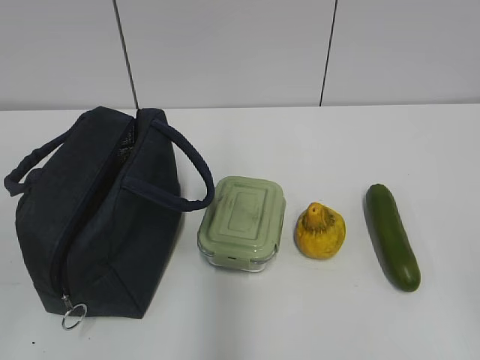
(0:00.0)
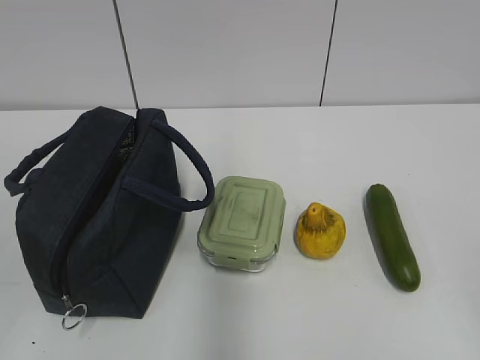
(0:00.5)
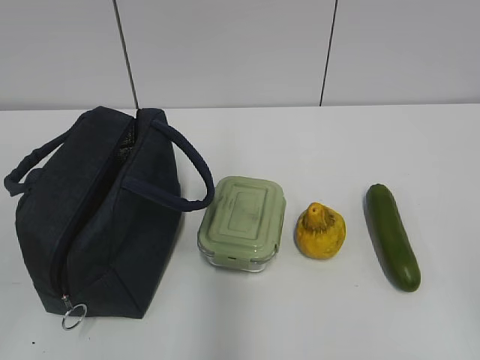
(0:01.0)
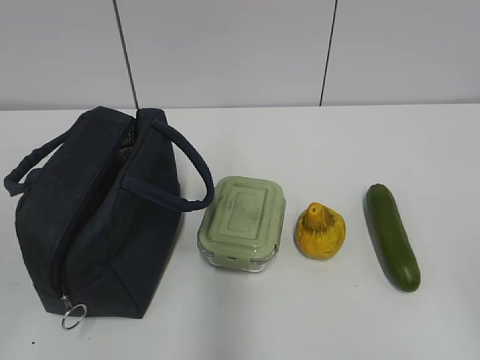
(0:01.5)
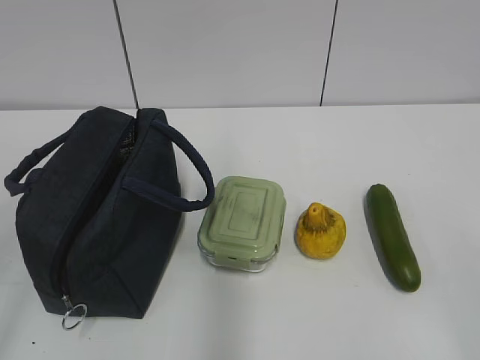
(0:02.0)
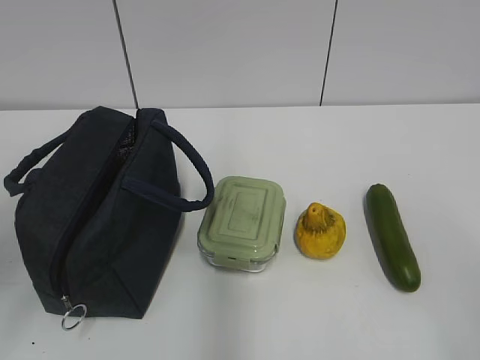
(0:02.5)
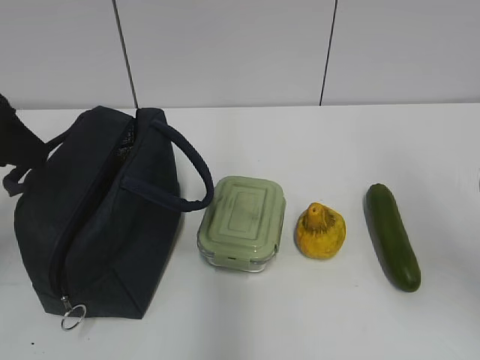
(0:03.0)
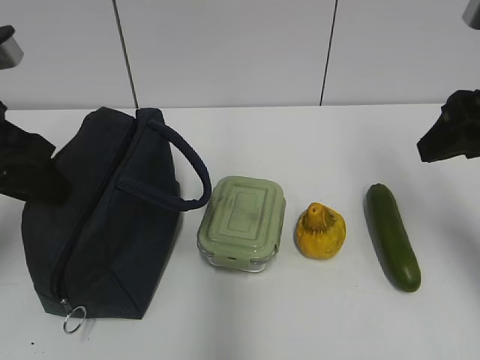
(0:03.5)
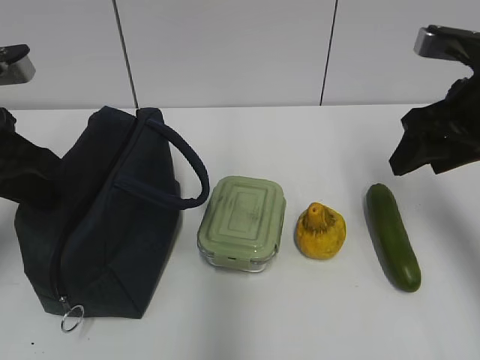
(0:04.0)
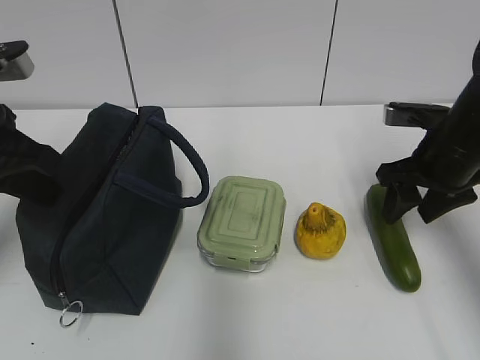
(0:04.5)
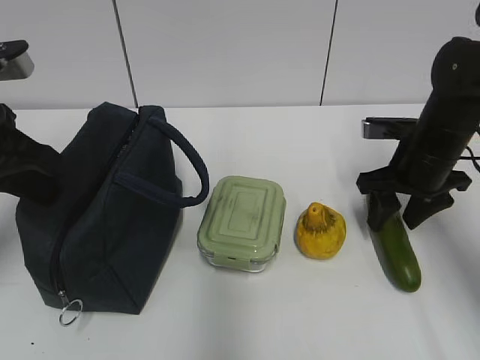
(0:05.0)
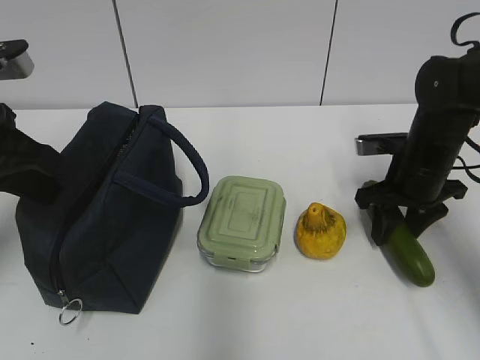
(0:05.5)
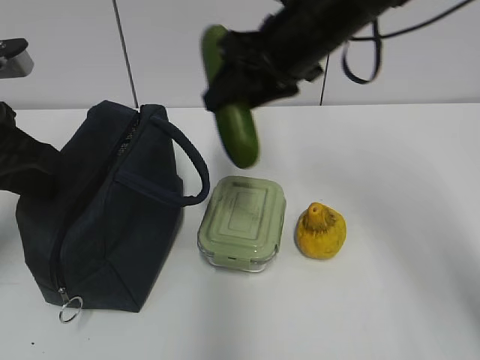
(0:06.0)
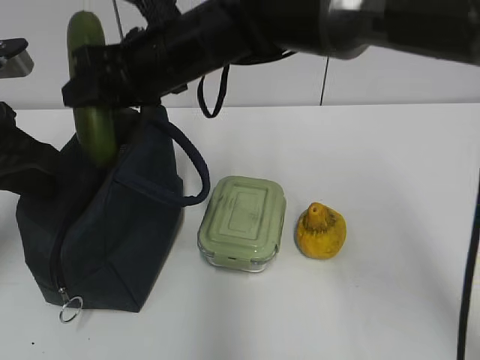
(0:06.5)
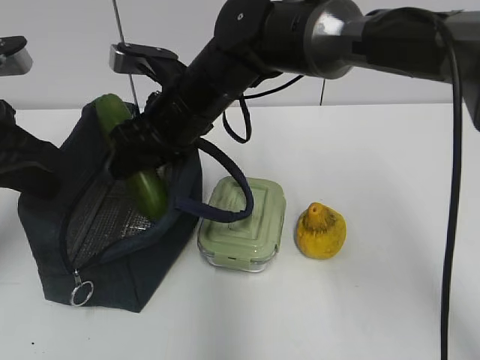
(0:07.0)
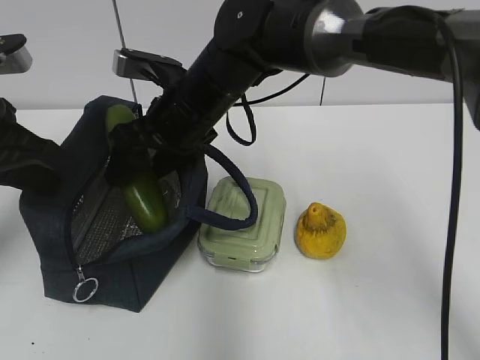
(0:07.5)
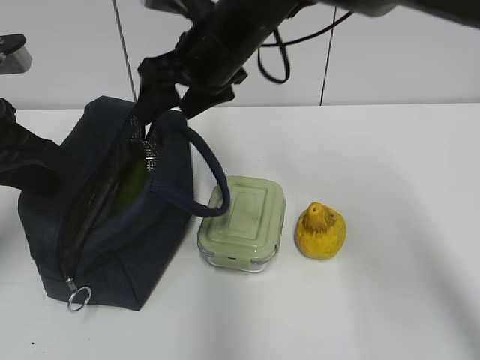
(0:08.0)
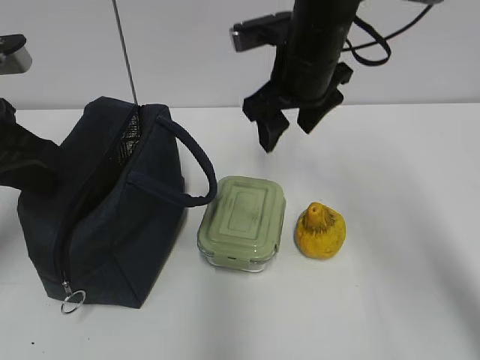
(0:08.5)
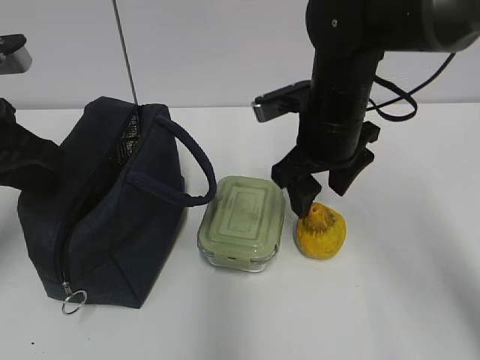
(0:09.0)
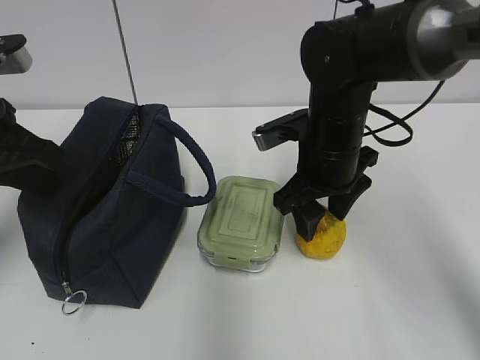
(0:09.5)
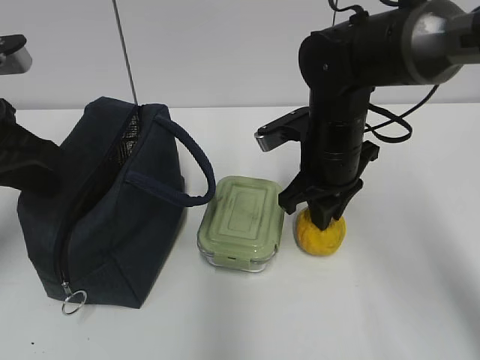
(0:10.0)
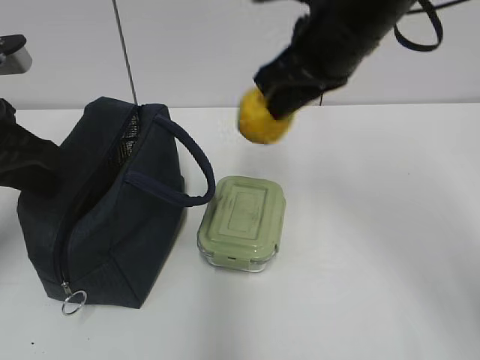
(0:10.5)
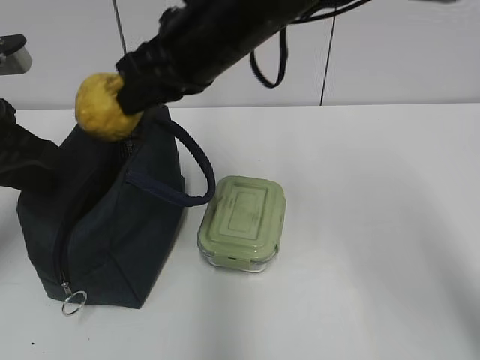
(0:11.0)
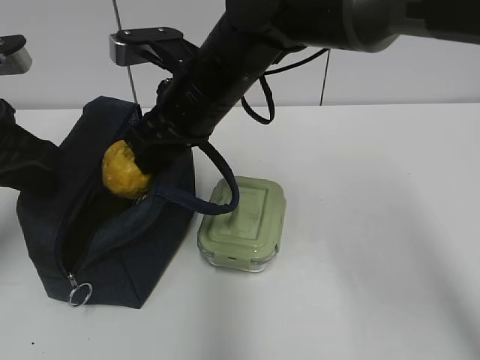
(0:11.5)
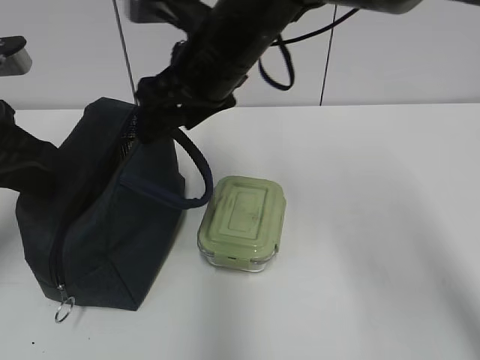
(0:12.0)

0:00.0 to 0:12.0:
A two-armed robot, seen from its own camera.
Step, 0:00.0 to 0:05.0: Grab the cucumber with your right hand.
Step, 0:07.0 to 0:07.5: Place it into the bag with your right hand.
Step, 0:08.0 to 0:09.5: Grab the pear with your right hand.
Step, 0:10.0 to 0:11.5: Place it into the bag with your right hand.
0:02.0 to 0:04.0: The grippers both shift forward by approximately 30 cm. The left gripper closes its fingers.
0:04.0 to 0:06.0: The right gripper moves to the left, approximately 15 cm.
0:06.0 to 0:08.0: The right gripper goes roughly 5 cm to the left, and opens its fingers.
0:08.0 to 0:10.0: The right gripper goes about 15 cm downward and to the right, and closes up.
0:10.0 to 0:12.0: The right gripper shifts roughly 15 cm upward and to the left, and opens up.

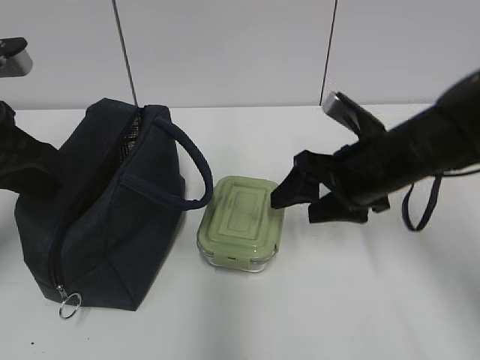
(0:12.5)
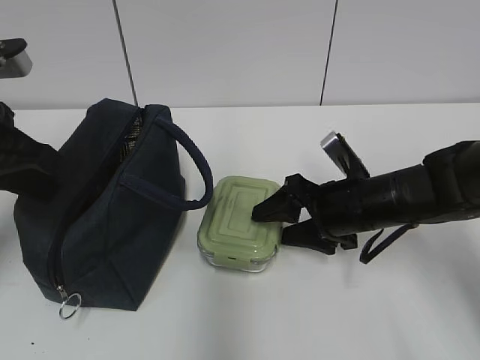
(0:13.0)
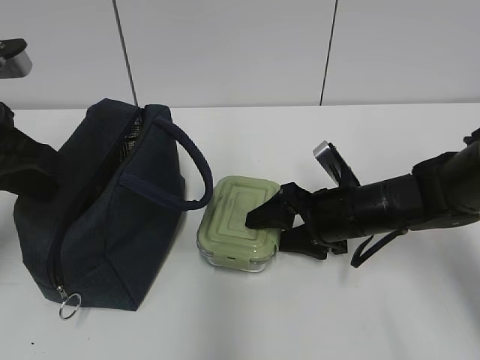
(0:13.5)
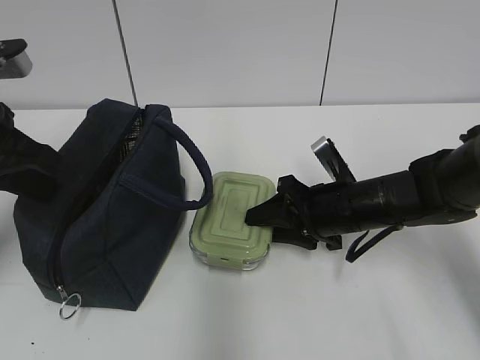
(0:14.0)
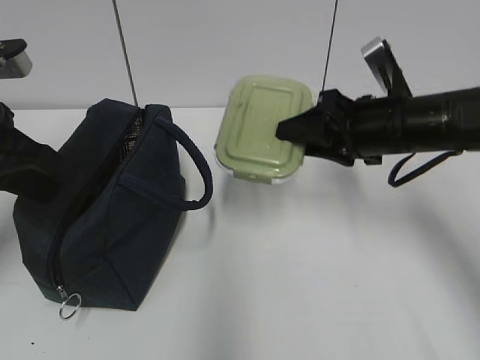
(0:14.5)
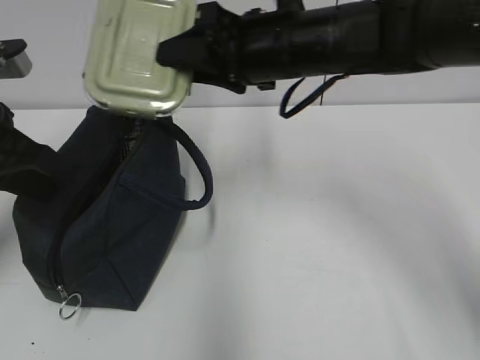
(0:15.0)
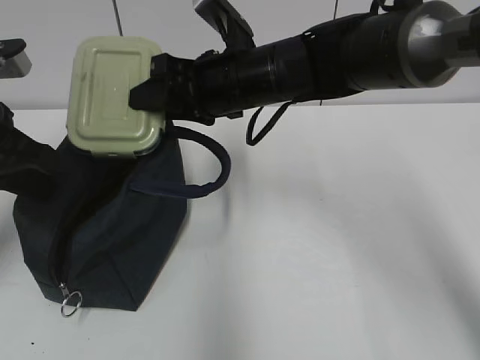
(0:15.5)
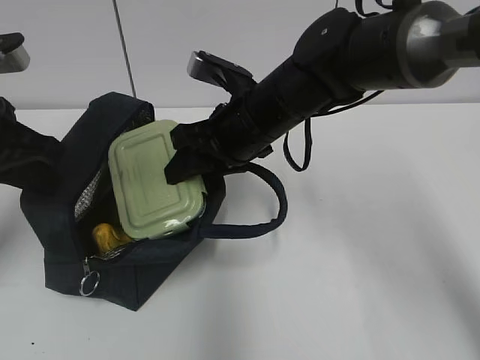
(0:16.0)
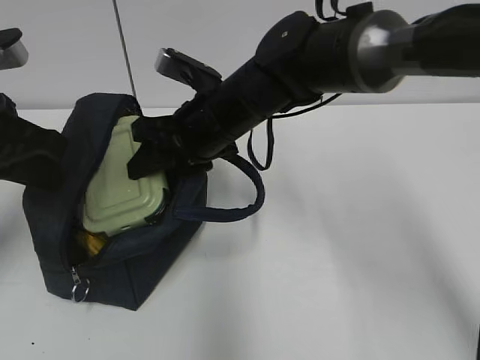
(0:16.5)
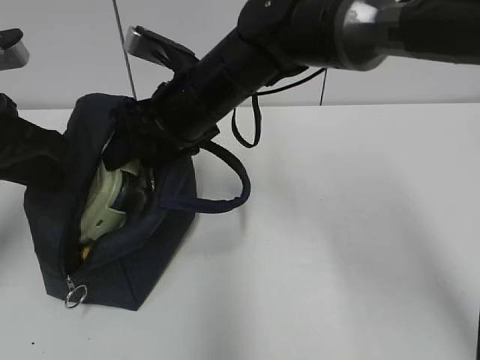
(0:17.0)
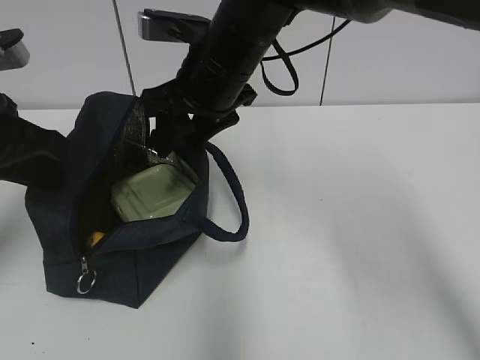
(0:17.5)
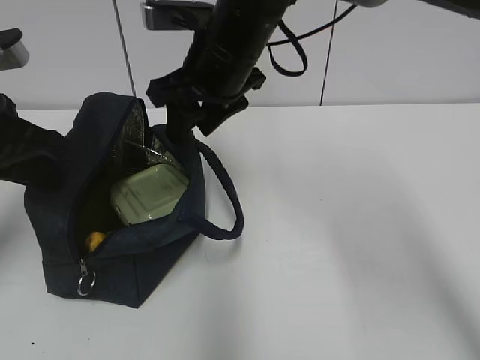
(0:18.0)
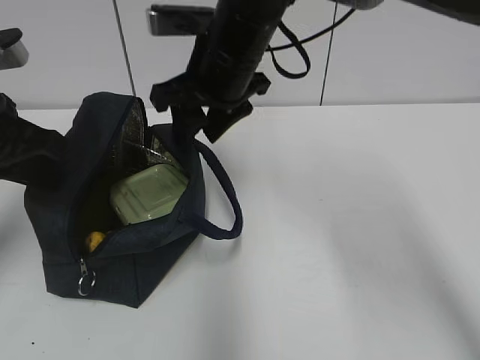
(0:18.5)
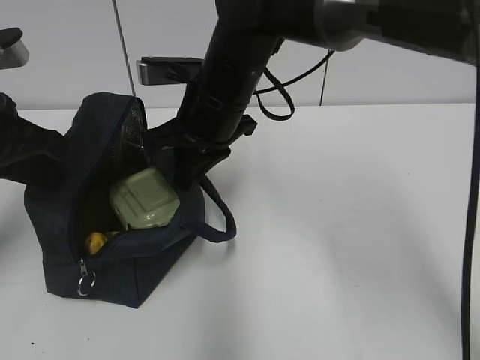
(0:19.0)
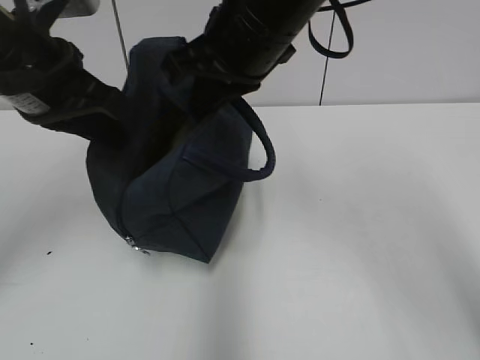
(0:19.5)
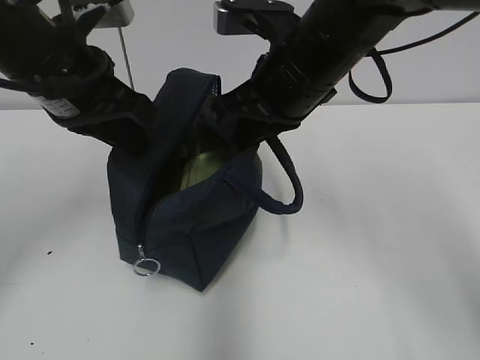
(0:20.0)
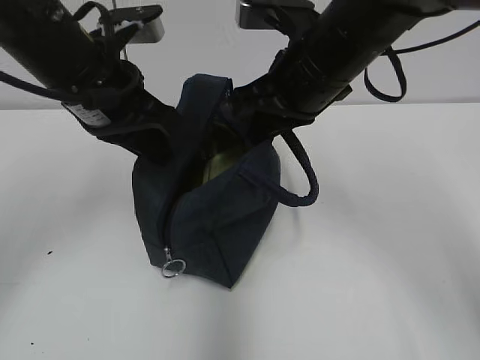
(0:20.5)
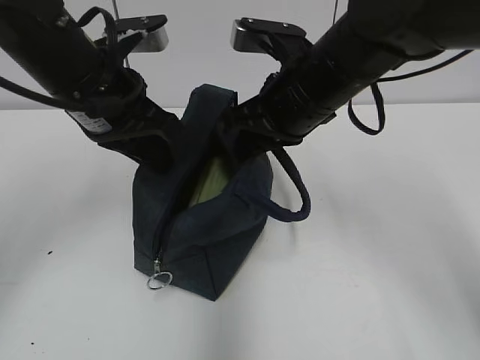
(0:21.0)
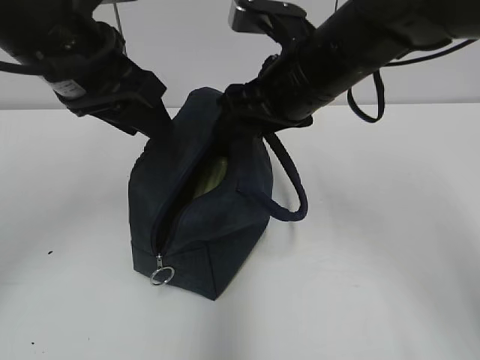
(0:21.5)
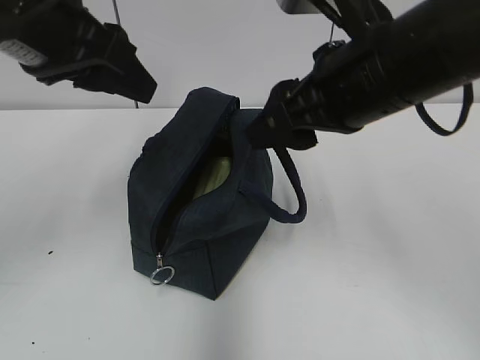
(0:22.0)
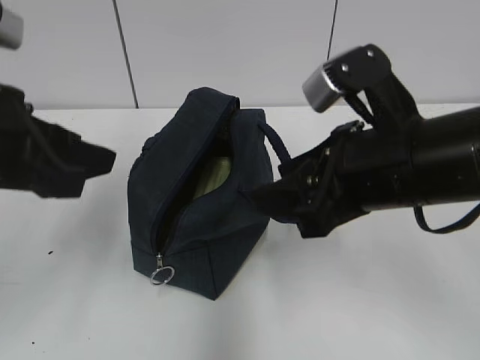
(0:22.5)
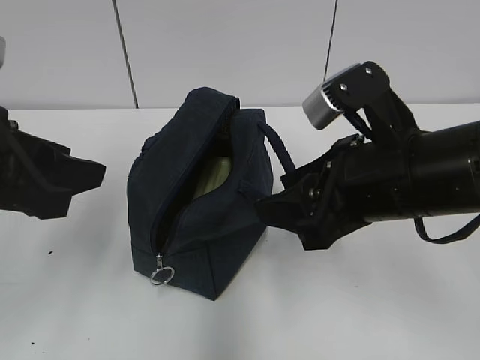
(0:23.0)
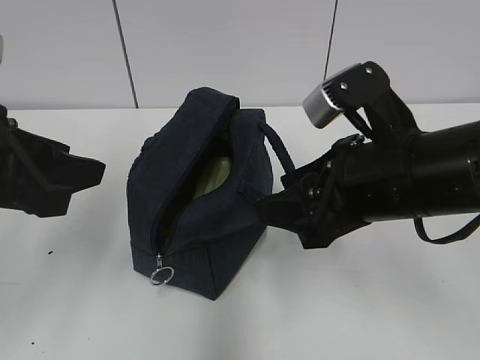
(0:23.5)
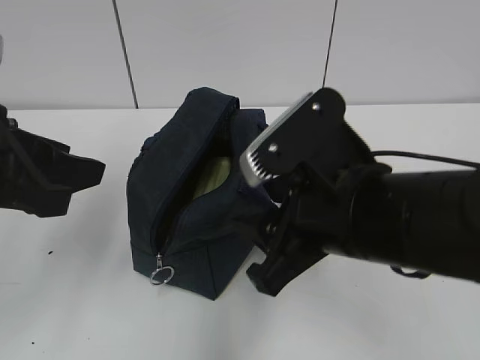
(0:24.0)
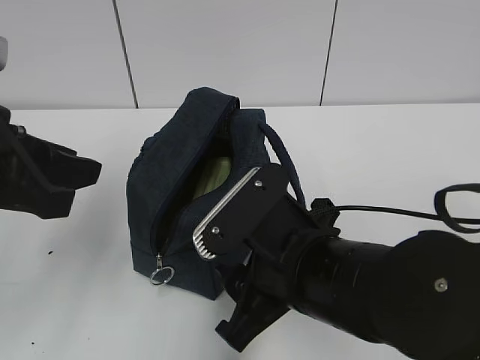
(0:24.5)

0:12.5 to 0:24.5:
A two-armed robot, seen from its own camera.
Step, 0:12.5 to 0:13.5: Grab the lunch box with your right hand.
Step, 0:14.0 to 0:18.0: Place it into the bag with your right hand.
Step, 0:18.5 to 0:19.0: Grab the lunch bag with your right hand.
Step, 0:20.0 to 0:21.0: Move the lunch bag to the right.
0:12.5 to 0:14.5: The right gripper moves roughly 5 cm, and closes up.
0:14.5 to 0:16.5: The right gripper heads to the left, covering approximately 20 cm.
0:16.5 to 0:18.5: The right gripper heads upward, covering some 5 cm.
0:18.5 to 0:20.5: Both grippers move to the right, some 10 cm. The right gripper closes.
0:20.5 to 0:22.5: The right gripper moves backward, some 10 cm, and opens up. The left gripper travels backward and to the left by some 15 cm, and opens its fingers.
0:22.5 to 0:24.5: The right gripper is displaced to the left and downward by approximately 10 cm.

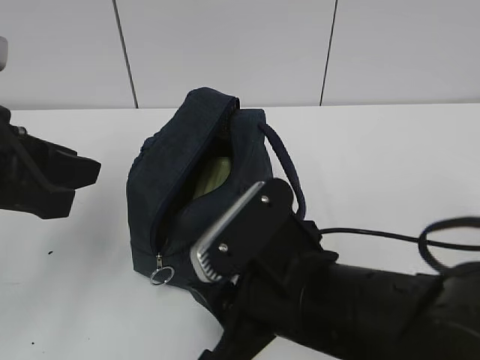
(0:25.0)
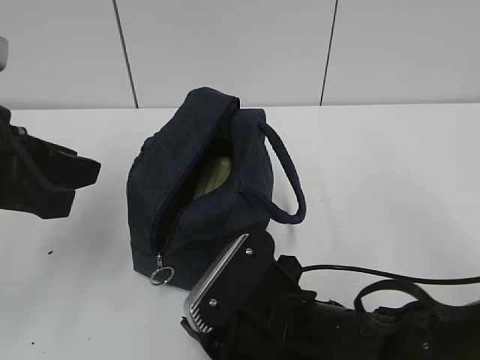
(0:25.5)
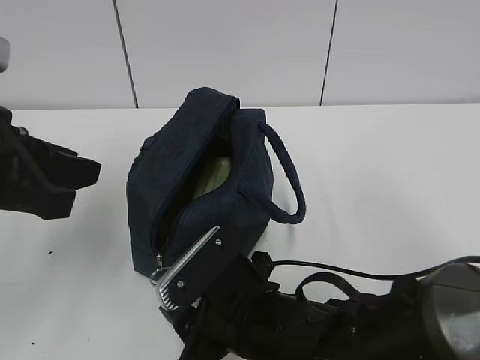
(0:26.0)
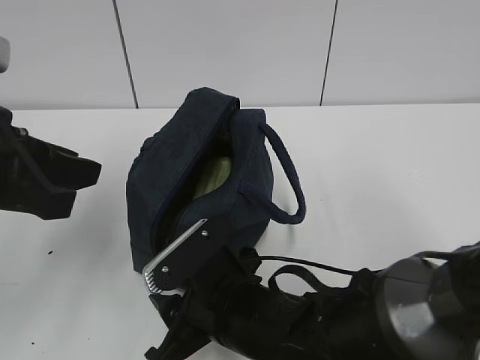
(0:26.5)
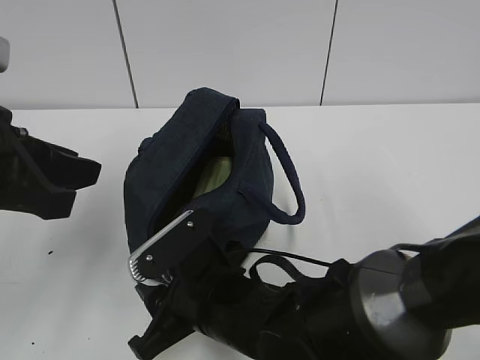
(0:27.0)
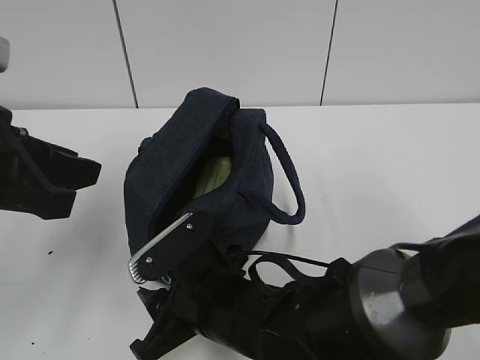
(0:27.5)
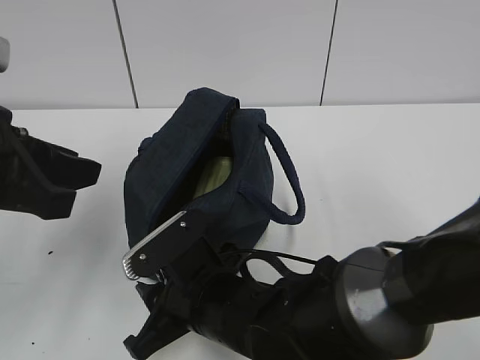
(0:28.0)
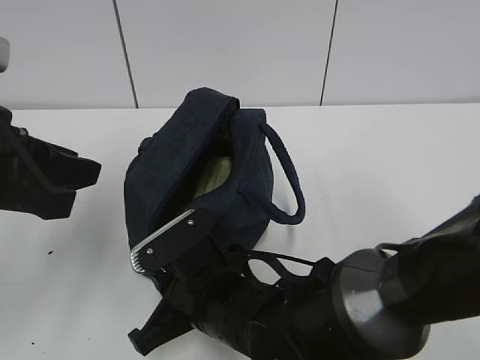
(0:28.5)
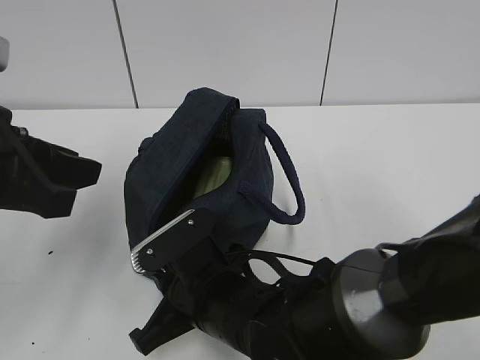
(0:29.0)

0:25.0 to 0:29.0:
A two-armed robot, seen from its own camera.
0:25.0 to 0:27.0: The right gripper moves downward and to the left, roughly 10 cm.
0:27.0 to 0:29.0: The right gripper closes.
